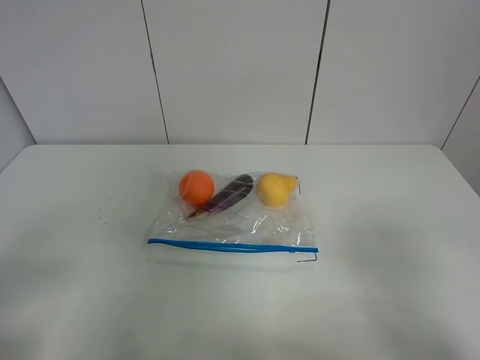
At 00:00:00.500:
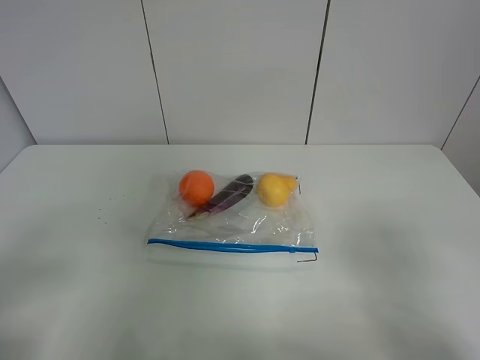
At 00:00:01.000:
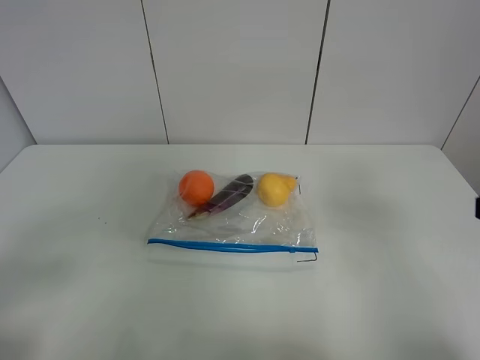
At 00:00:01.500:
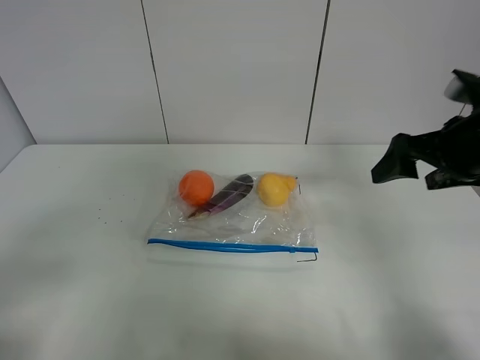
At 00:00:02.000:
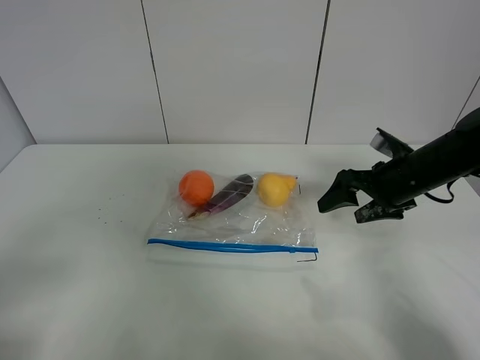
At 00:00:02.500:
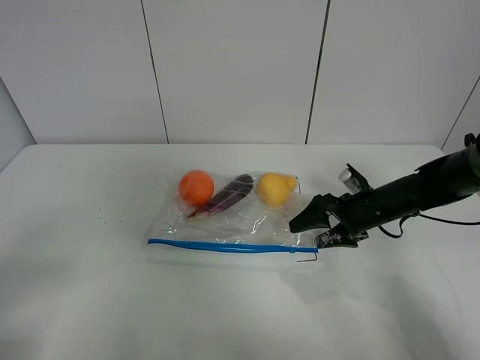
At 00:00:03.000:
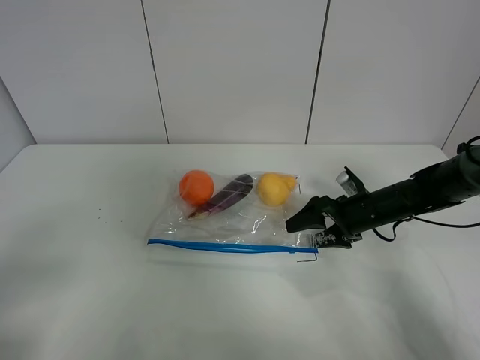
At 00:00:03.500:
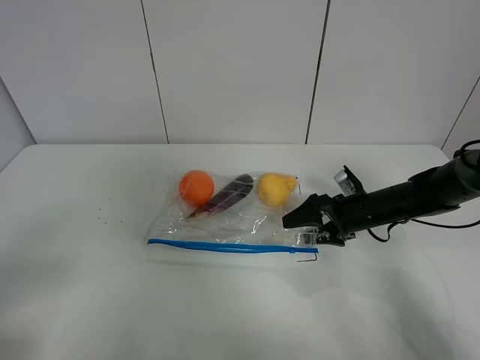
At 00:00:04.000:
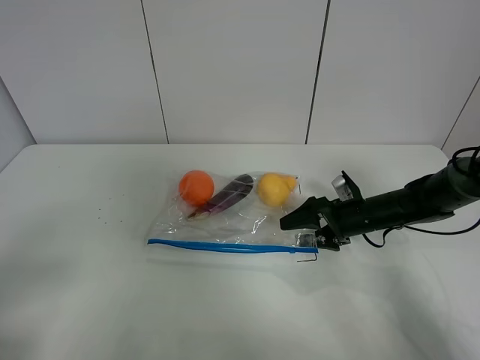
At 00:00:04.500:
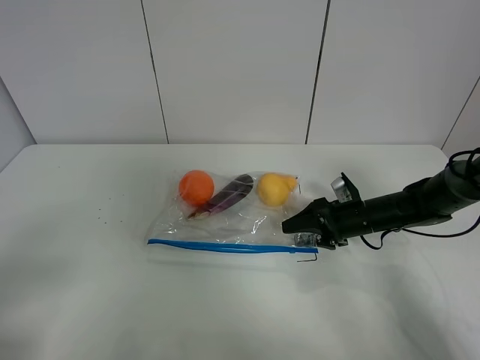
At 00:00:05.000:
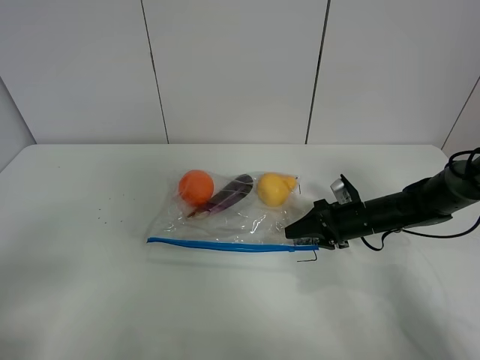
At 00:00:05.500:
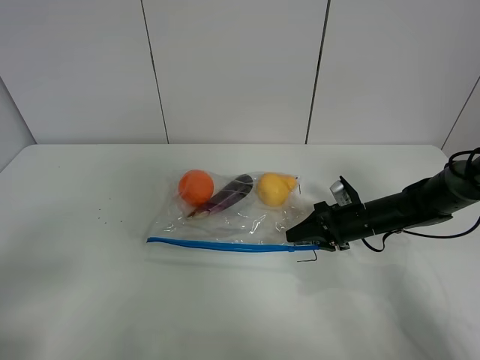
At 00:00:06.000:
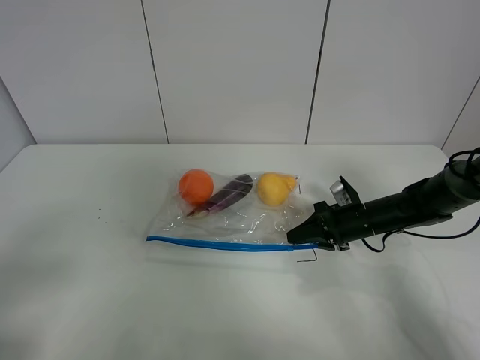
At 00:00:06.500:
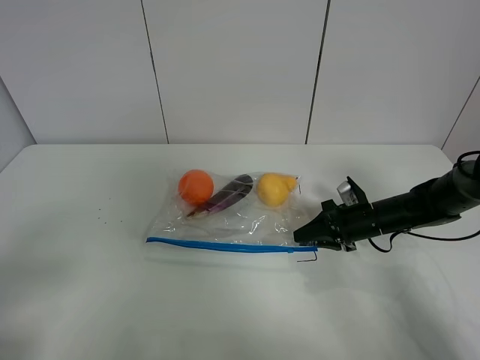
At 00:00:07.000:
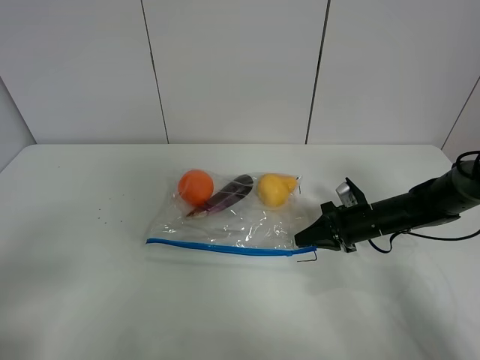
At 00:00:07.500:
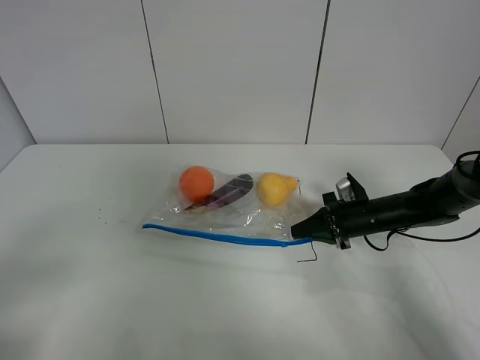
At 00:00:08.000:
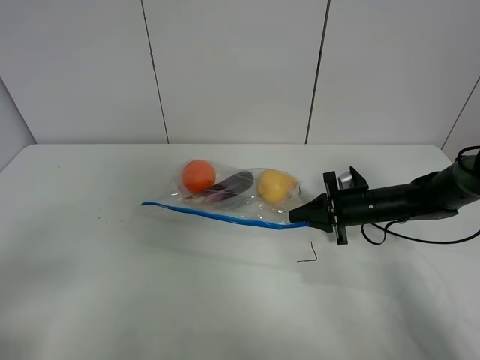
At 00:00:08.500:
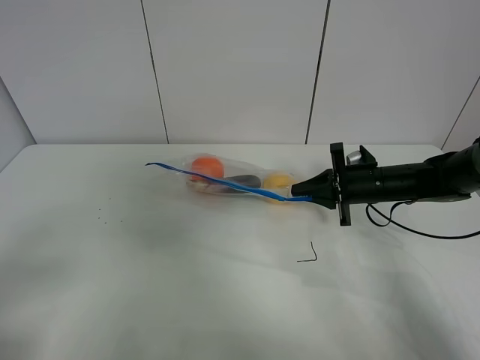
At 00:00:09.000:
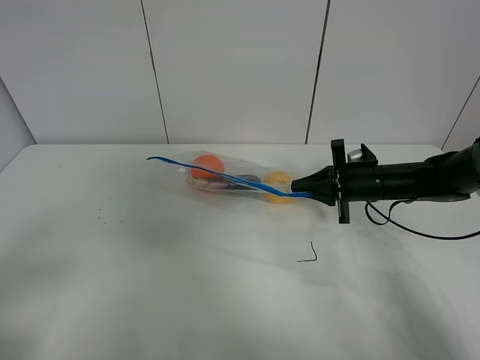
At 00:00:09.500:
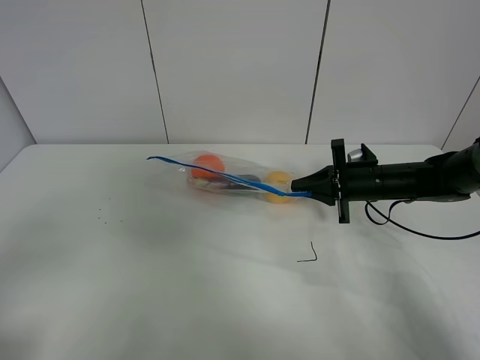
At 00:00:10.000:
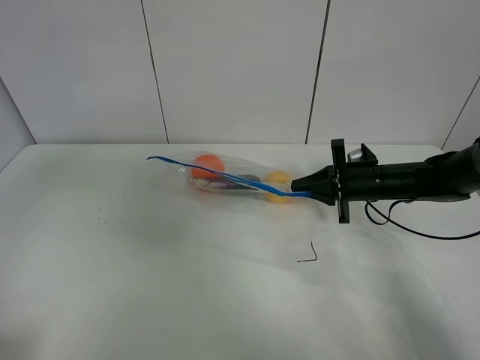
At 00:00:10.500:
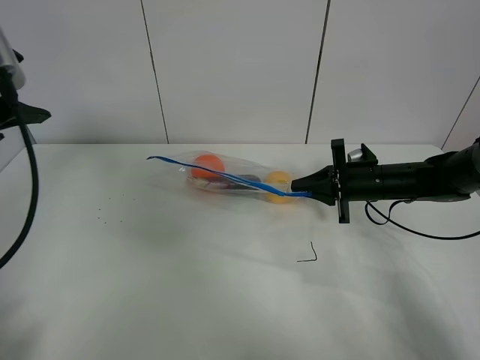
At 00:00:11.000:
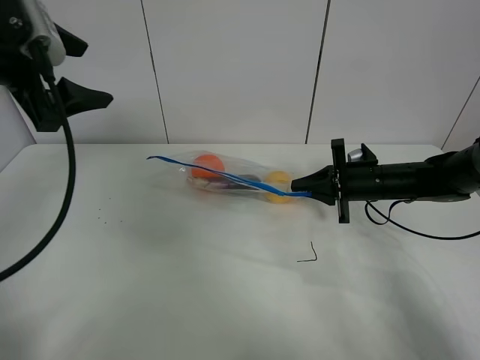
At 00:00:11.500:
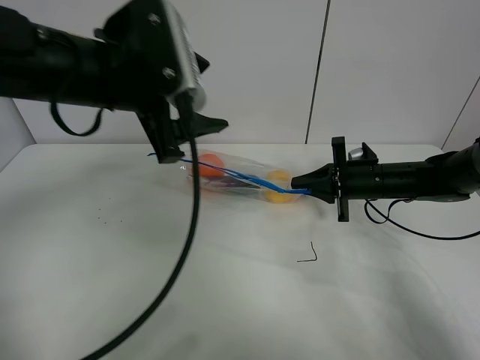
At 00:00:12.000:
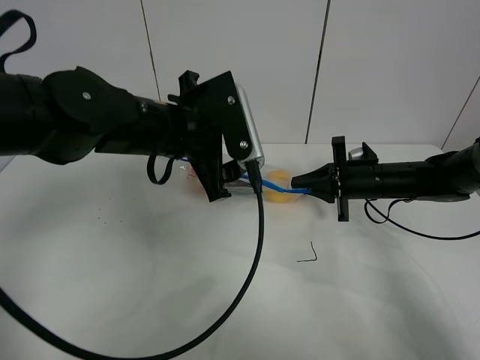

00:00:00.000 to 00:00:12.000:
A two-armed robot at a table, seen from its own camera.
Step, 00:00:00.000 to 00:00:07.000: Grasp the fruit bag with right gripper.
Step, 00:00:07.500 to 00:00:09.000: Lift the fruit bag with your right gripper.
00:00:00.000 to 00:00:02.000: The right gripper shifts about 30 cm forward.
00:00:02.000 to 00:00:04.000: The right gripper travels downward by roughly 10 cm.
00:00:04.000 to 00:00:06.000: The right gripper closes.
00:00:06.000 to 00:00:08.000: The grippers make only small movements.
00:00:08.000 to 00:00:10.000: The left gripper is displaced upward and forward by roughly 20 cm.
00:00:10.000 to 00:00:12.000: The left gripper heads to the right, forward and downward, covering about 30 cm.

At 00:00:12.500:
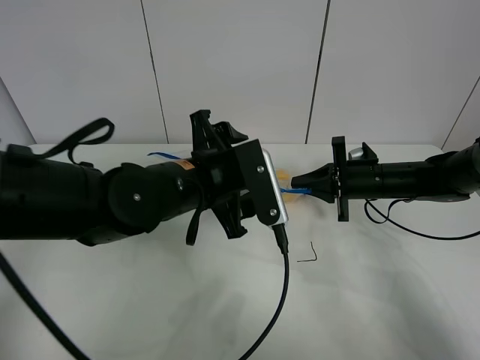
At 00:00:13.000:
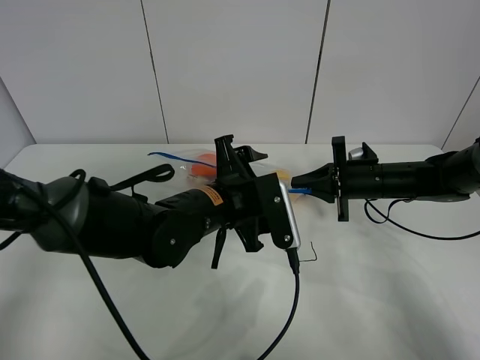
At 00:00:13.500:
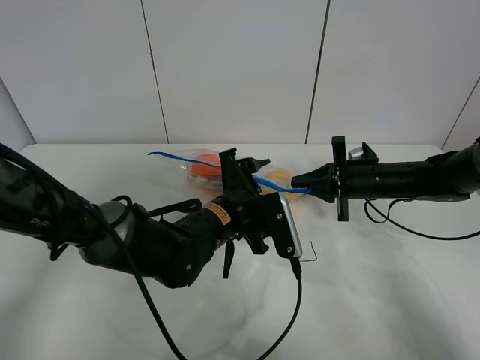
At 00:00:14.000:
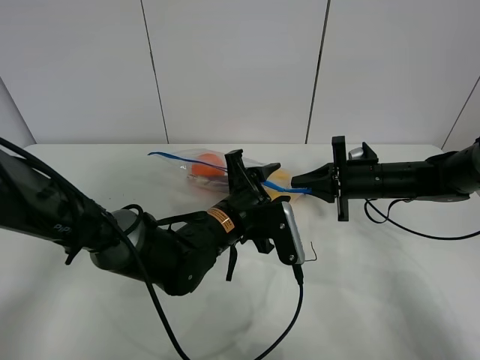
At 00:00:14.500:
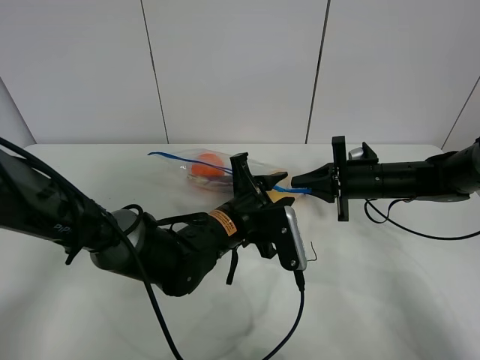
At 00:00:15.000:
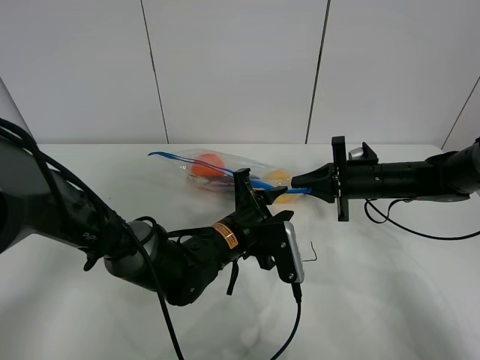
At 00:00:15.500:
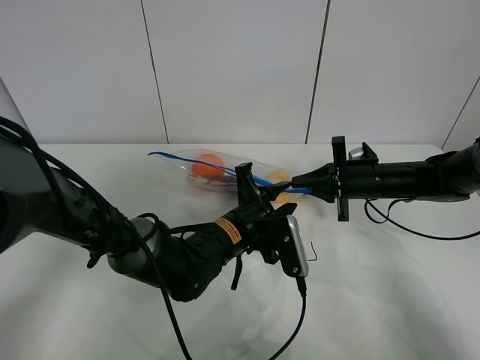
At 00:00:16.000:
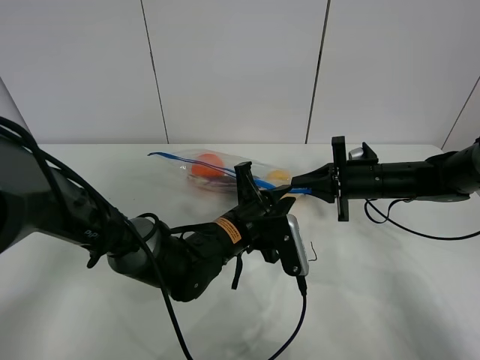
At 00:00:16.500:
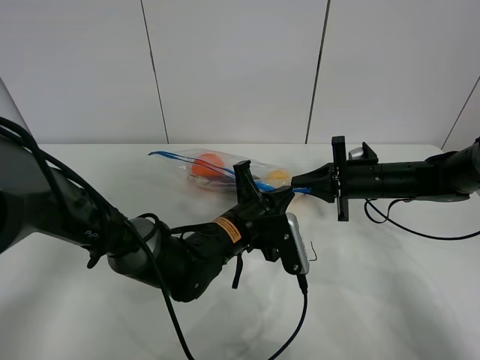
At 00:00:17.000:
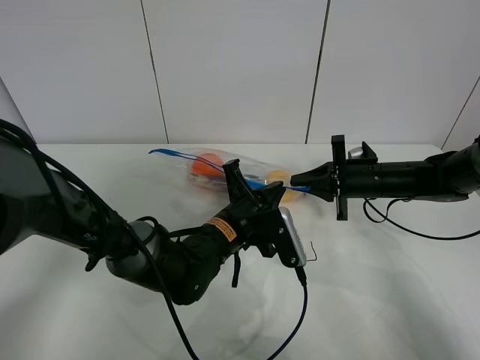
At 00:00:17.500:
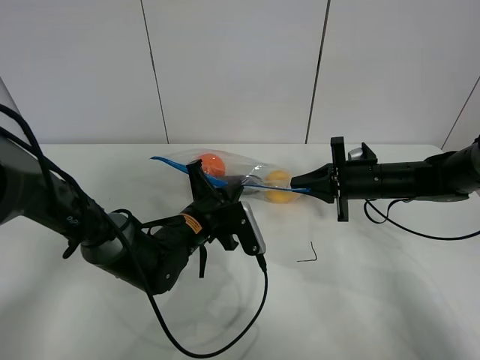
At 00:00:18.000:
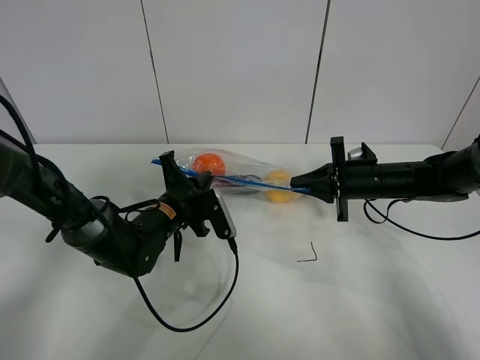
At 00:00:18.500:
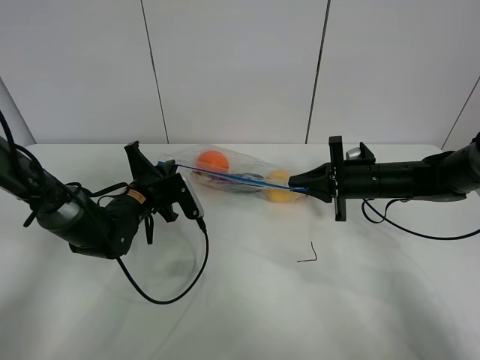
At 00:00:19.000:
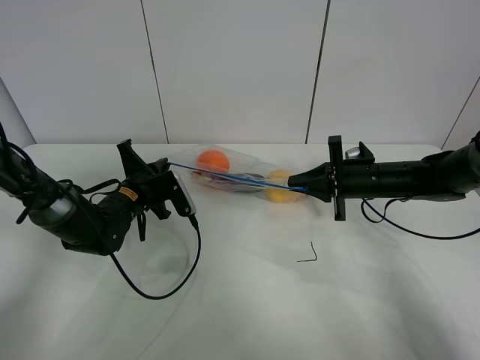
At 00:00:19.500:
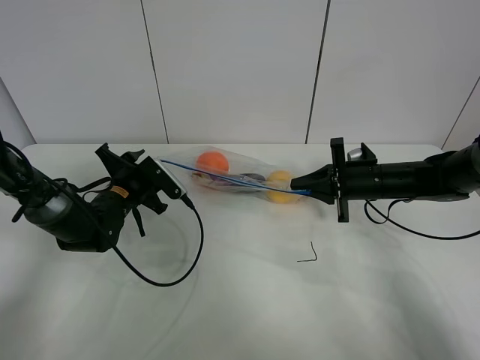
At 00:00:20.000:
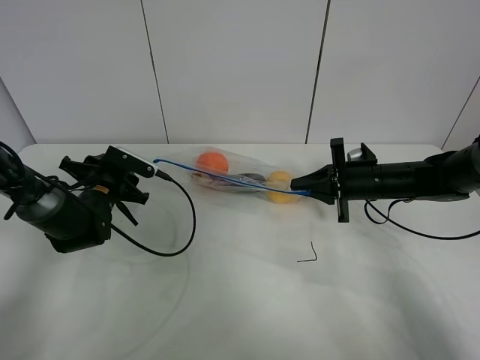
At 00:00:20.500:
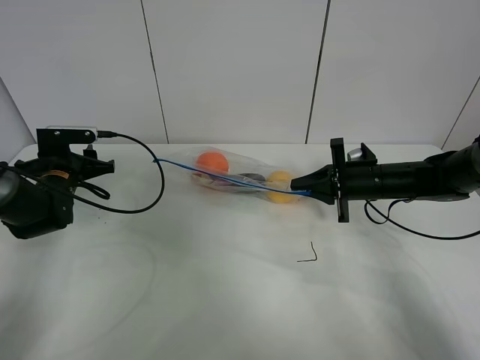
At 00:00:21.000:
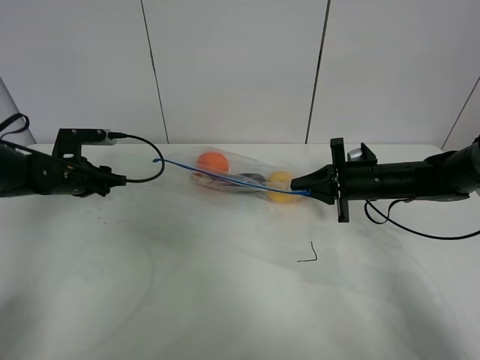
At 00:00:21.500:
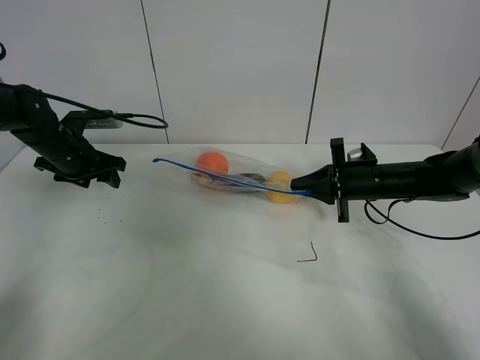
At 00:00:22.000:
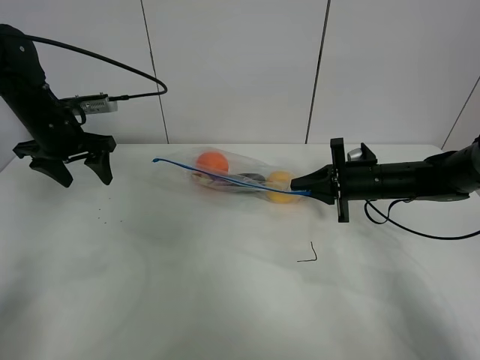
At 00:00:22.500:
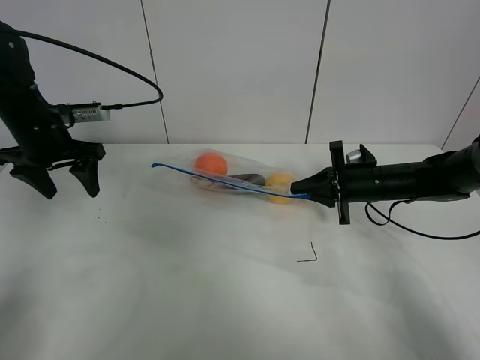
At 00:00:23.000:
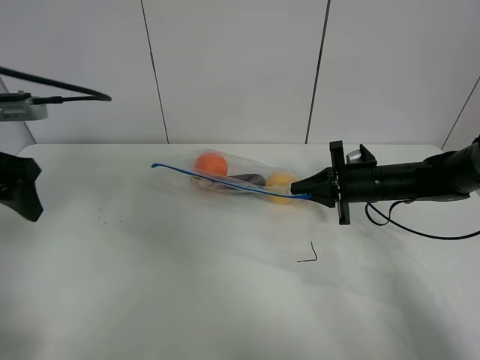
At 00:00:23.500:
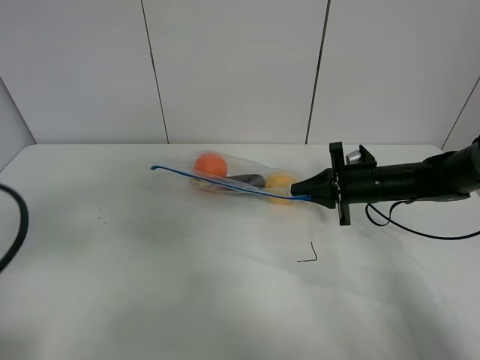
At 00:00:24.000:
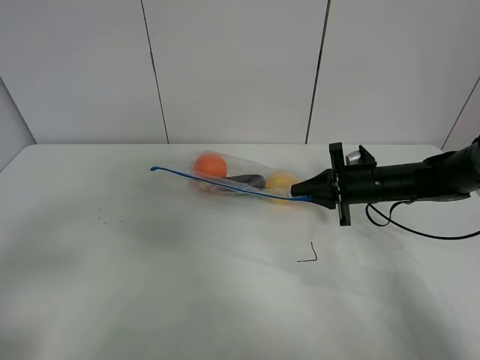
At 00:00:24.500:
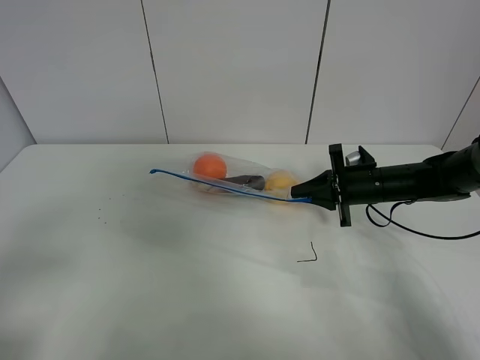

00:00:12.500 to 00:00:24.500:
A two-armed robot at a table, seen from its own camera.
Step, 00:00:12.500 to 00:00:19.000: Pull the fruit bag with left gripper.
00:00:12.500 to 00:00:14.500: The left gripper heads downward, covering some 10 cm, and closes.
00:00:14.500 to 00:00:16.500: The left gripper closes up.
00:00:16.500 to 00:00:18.500: The left gripper is displaced to the left and forward by about 20 cm.
00:00:18.500 to 00:00:20.500: The left gripper goes roughly 15 cm to the left, and opens.
00:00:20.500 to 00:00:22.500: The left gripper travels upward by roughly 10 cm.
00:00:22.500 to 00:00:24.500: The left gripper goes approximately 35 cm backward.

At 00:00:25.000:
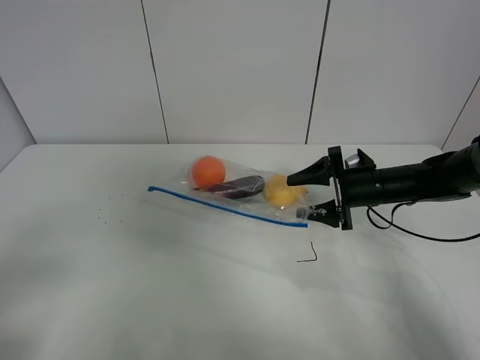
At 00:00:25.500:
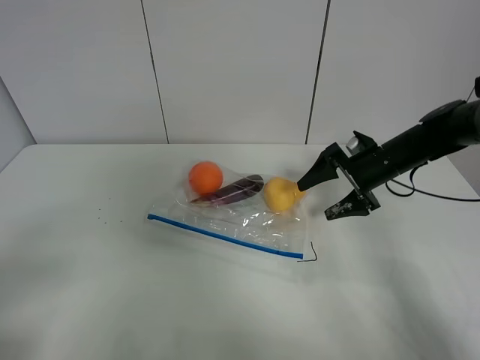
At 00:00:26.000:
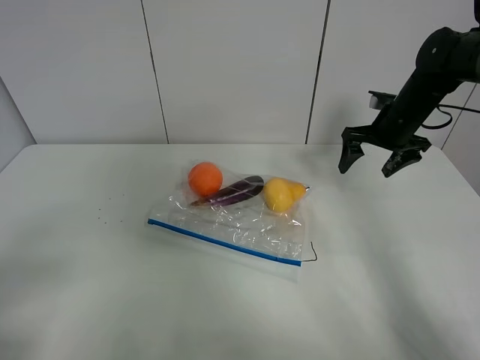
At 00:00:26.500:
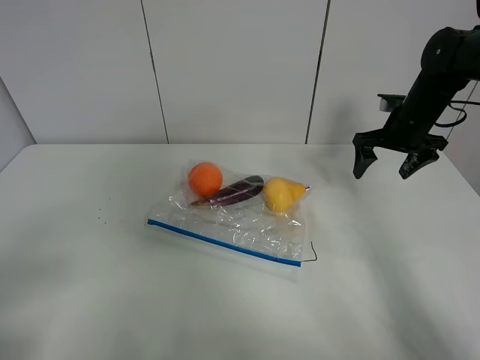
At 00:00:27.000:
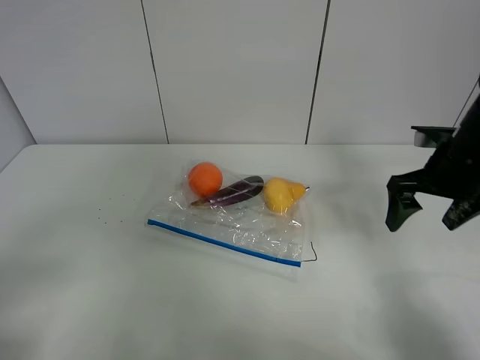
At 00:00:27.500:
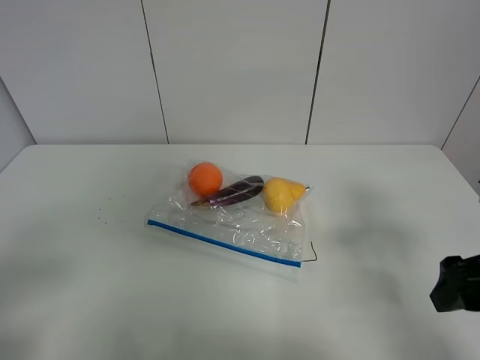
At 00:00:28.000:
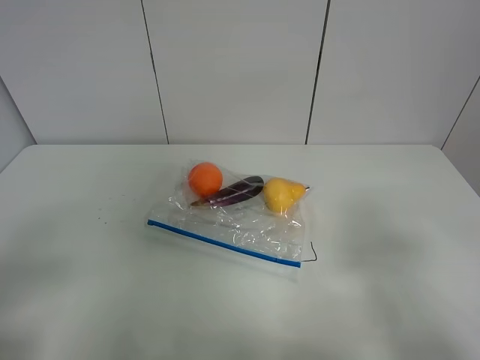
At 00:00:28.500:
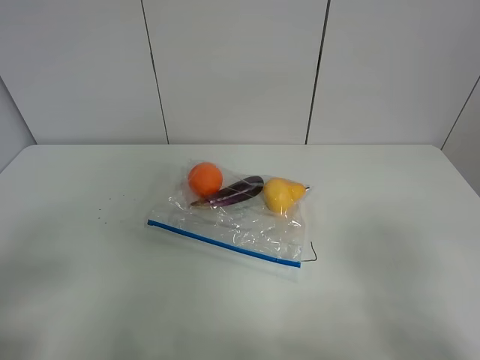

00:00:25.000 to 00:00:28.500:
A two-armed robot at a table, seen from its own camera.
00:00:25.000 to 00:00:27.000: The right gripper moves upward, backward and to the right, approximately 15 cm.
00:00:27.000 to 00:00:28.500: The right gripper is displaced backward by roughly 30 cm.
